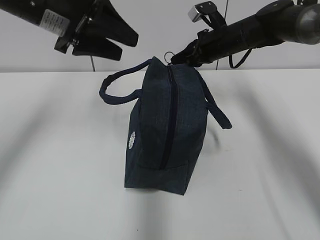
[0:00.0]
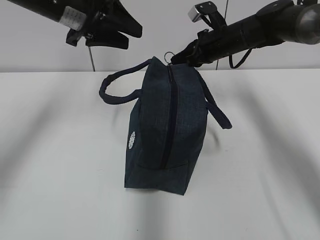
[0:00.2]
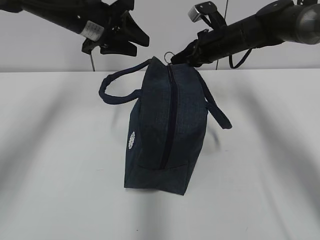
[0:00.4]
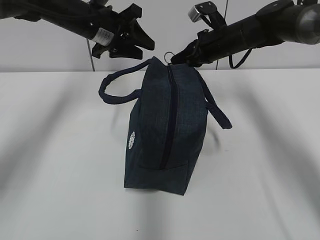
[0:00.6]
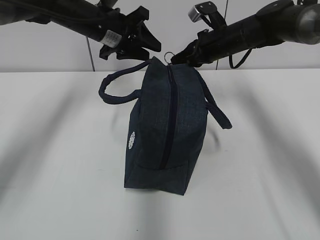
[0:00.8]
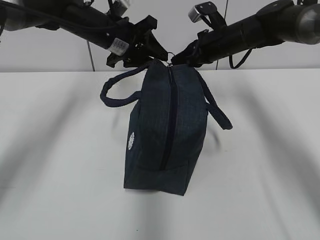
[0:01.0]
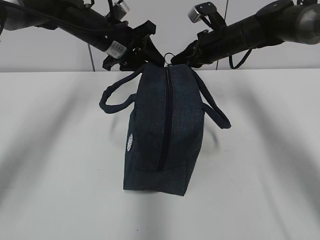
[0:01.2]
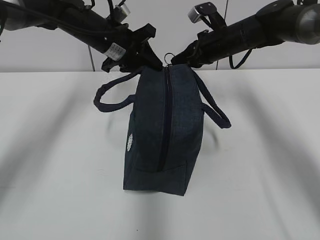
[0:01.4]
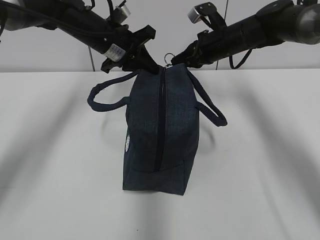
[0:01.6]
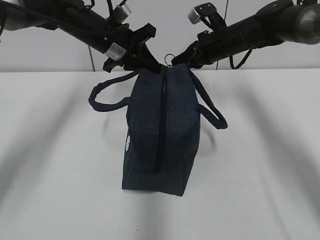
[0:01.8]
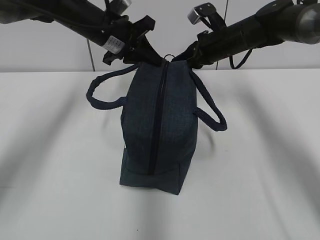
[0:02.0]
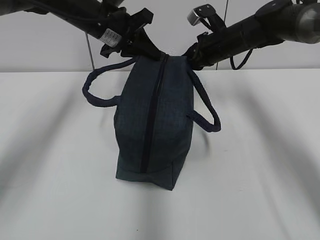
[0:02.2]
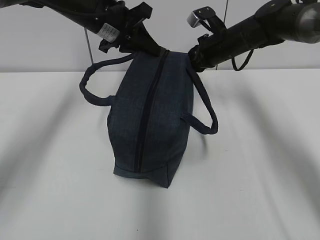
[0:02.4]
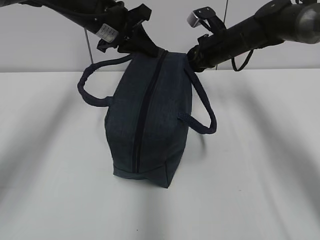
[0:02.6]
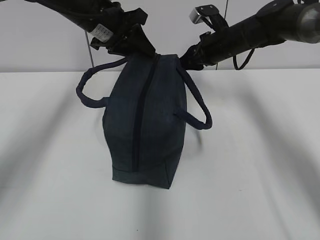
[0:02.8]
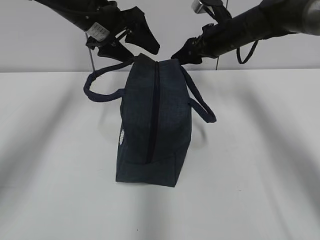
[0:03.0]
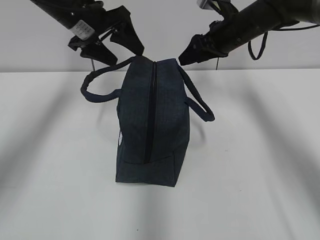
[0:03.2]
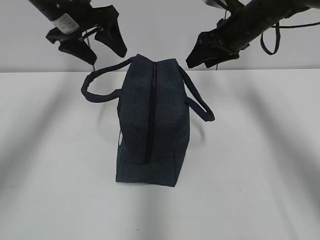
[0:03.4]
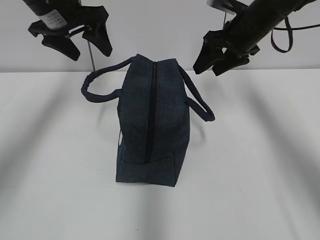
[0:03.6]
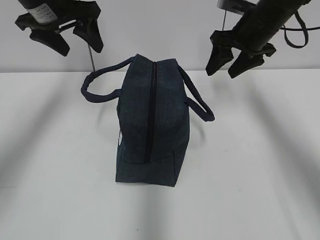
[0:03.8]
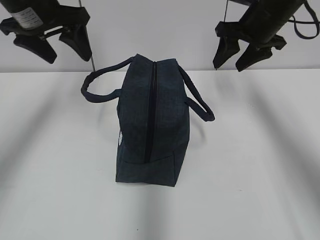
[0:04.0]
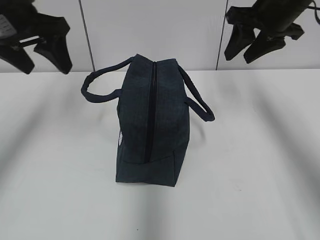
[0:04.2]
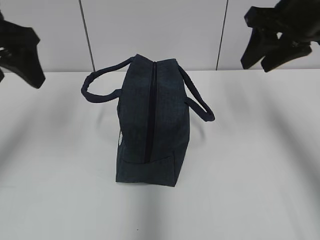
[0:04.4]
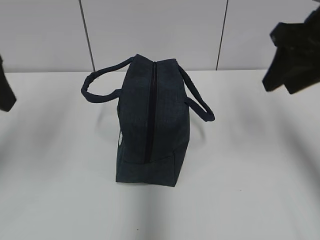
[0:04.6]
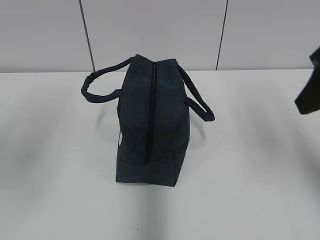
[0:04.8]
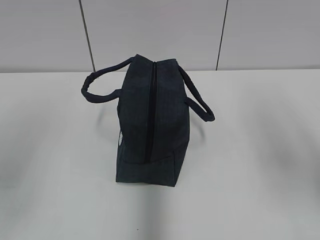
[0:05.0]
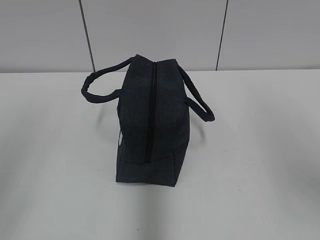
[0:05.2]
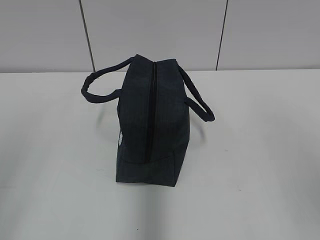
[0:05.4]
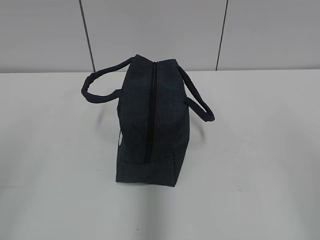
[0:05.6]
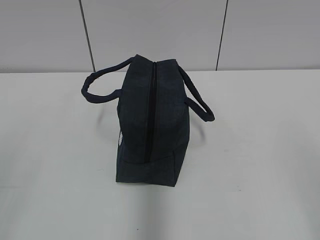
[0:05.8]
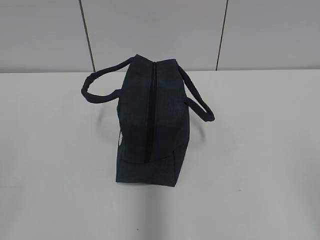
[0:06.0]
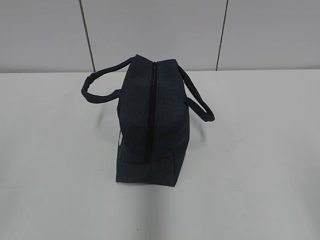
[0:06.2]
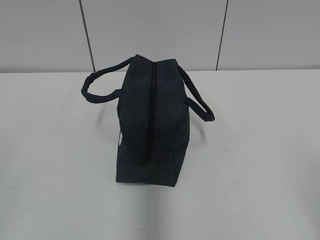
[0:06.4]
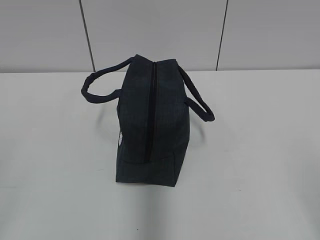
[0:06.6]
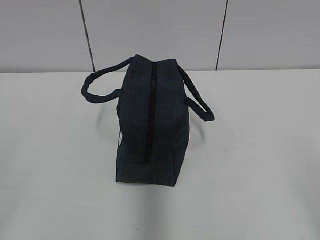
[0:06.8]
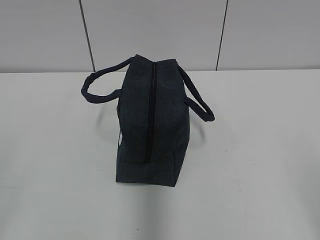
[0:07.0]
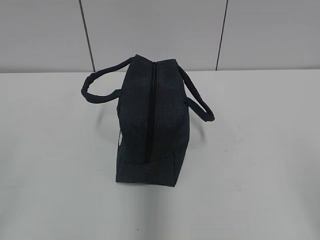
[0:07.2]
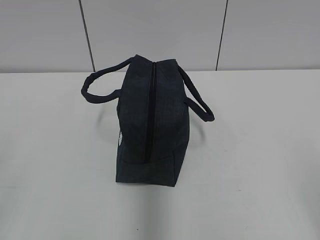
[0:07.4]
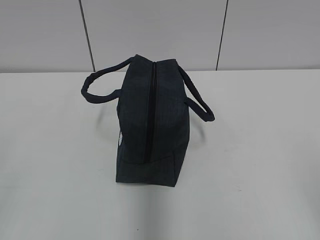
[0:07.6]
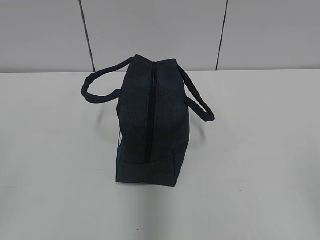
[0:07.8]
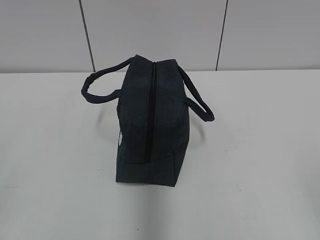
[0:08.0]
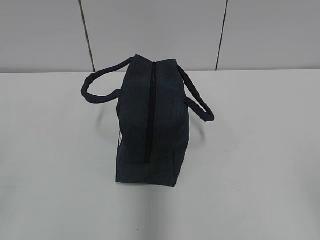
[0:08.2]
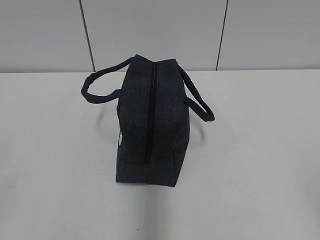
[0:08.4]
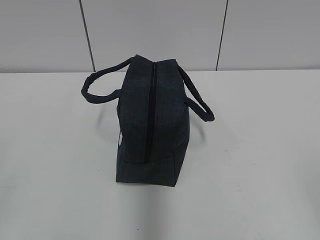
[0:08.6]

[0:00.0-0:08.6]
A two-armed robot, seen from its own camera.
0:00.0 to 0:01.4: The left gripper goes some 15 cm forward and downward.
0:01.4 to 0:02.8: The left gripper shifts by approximately 5 cm, and closes, then reopens. The right gripper opens up.
0:02.8 to 0:04.4: The left gripper heads backward and to the left, covering about 20 cm, and opens its fingers. The right gripper travels backward and upward by about 20 cm.
0:04.4 to 0:05.8: The grippers both shift backward by about 30 cm.

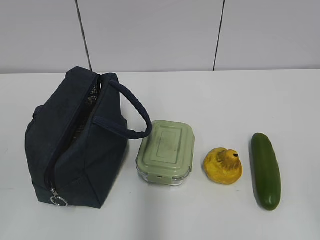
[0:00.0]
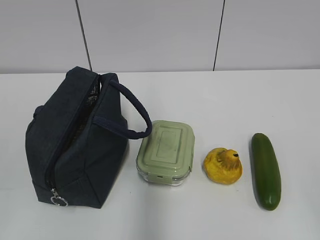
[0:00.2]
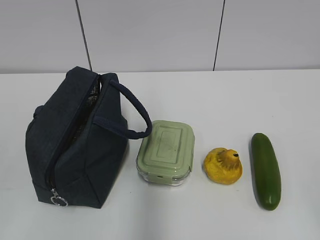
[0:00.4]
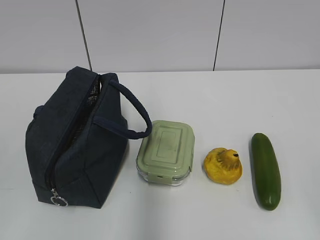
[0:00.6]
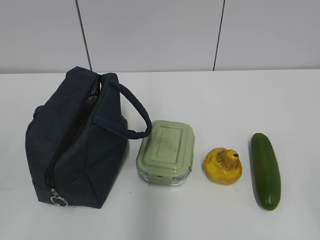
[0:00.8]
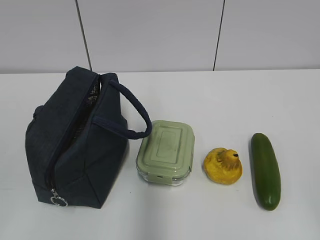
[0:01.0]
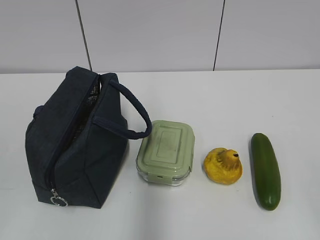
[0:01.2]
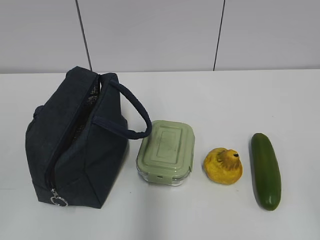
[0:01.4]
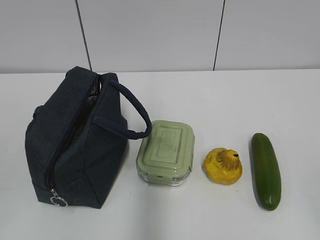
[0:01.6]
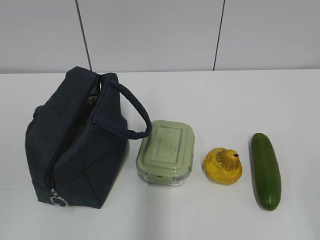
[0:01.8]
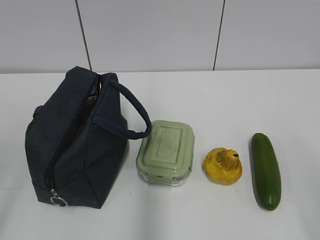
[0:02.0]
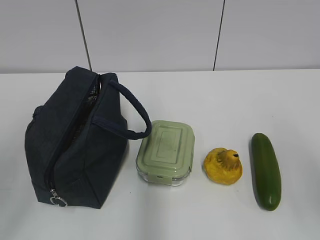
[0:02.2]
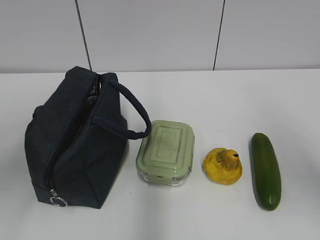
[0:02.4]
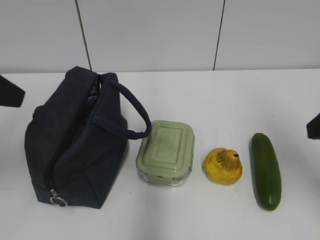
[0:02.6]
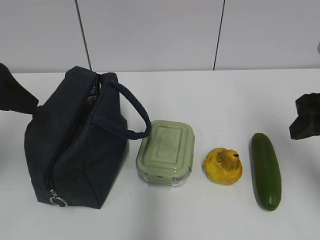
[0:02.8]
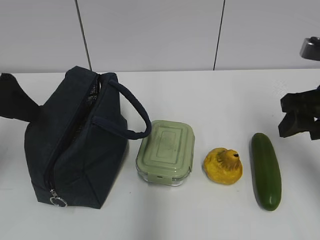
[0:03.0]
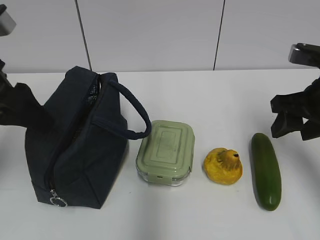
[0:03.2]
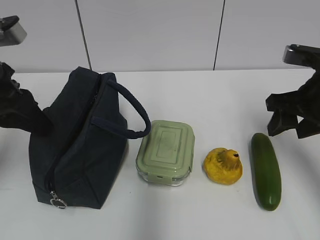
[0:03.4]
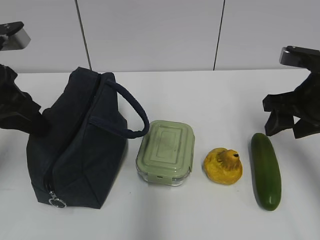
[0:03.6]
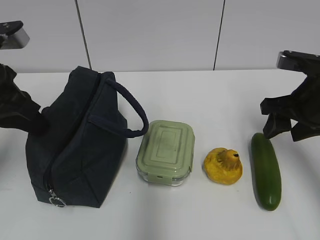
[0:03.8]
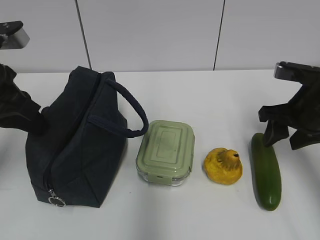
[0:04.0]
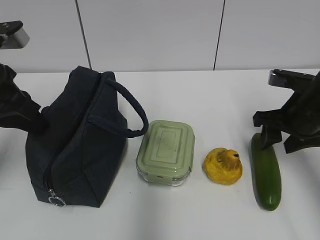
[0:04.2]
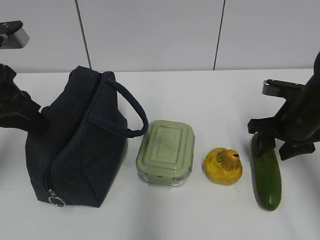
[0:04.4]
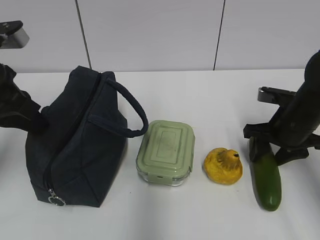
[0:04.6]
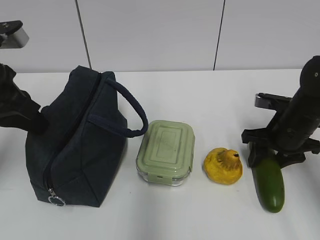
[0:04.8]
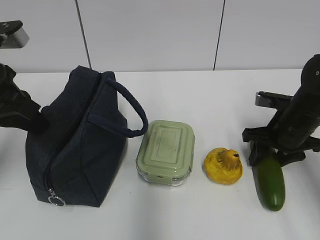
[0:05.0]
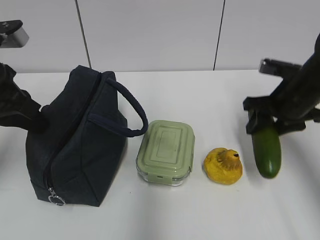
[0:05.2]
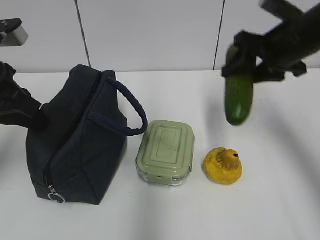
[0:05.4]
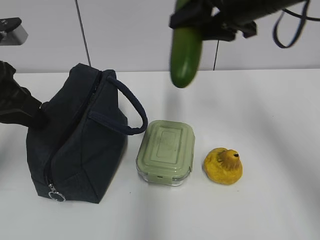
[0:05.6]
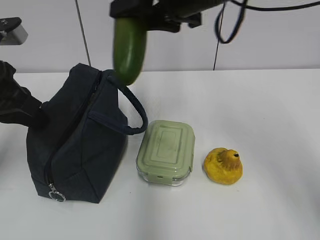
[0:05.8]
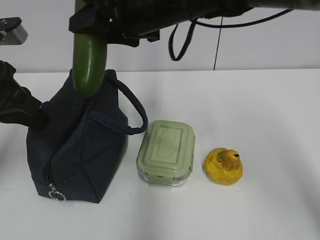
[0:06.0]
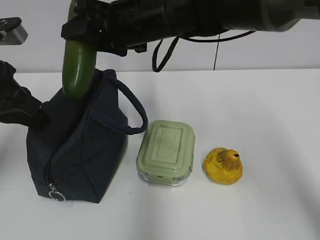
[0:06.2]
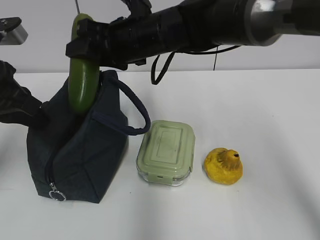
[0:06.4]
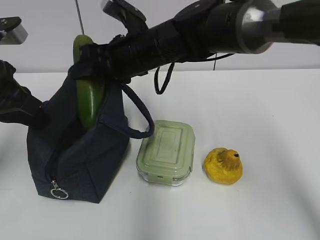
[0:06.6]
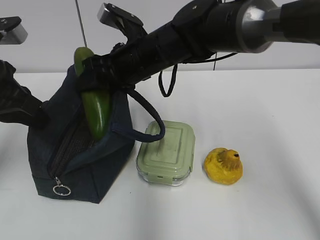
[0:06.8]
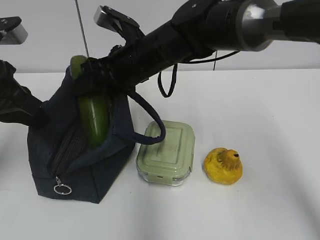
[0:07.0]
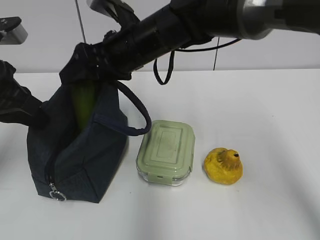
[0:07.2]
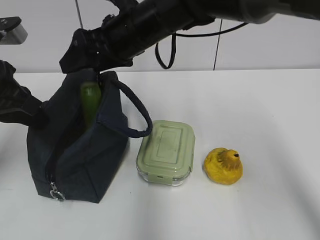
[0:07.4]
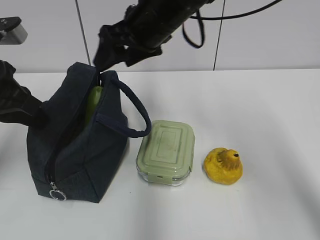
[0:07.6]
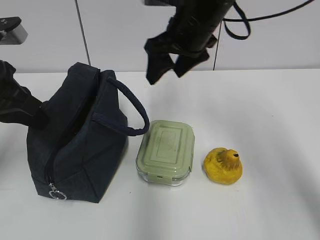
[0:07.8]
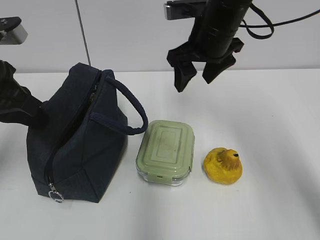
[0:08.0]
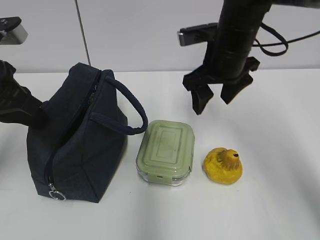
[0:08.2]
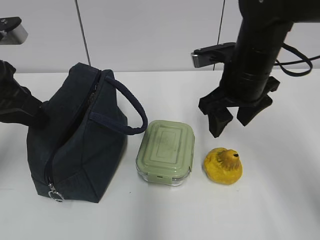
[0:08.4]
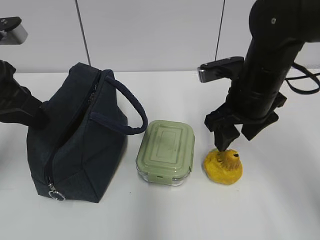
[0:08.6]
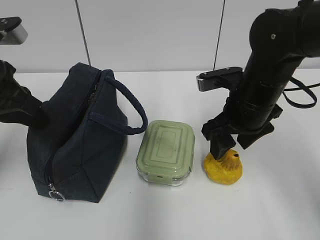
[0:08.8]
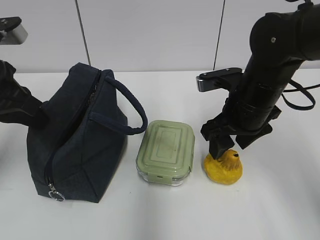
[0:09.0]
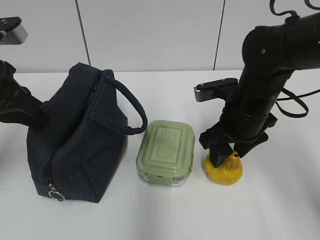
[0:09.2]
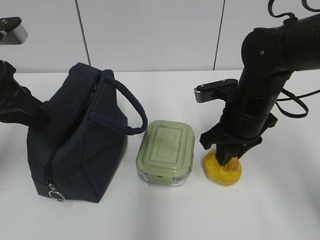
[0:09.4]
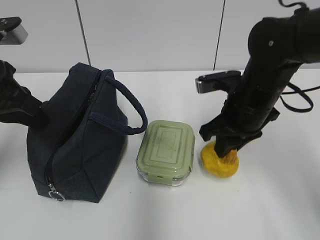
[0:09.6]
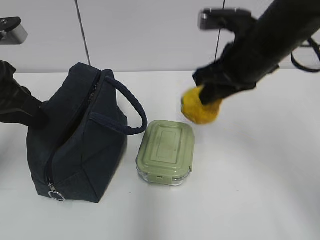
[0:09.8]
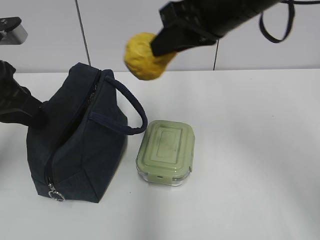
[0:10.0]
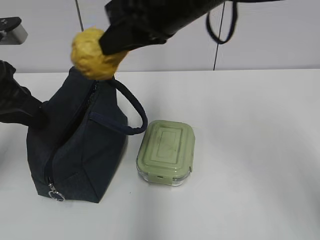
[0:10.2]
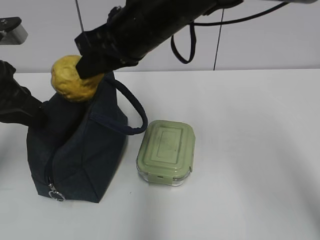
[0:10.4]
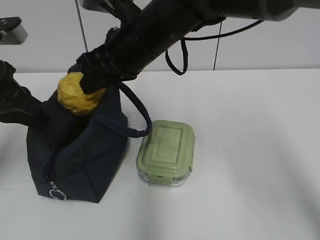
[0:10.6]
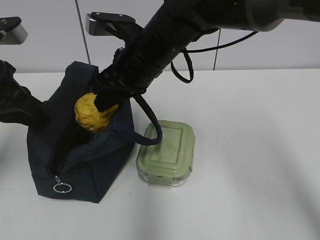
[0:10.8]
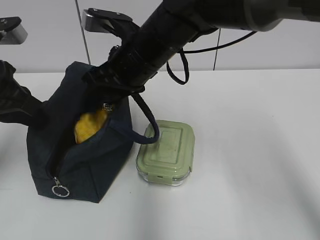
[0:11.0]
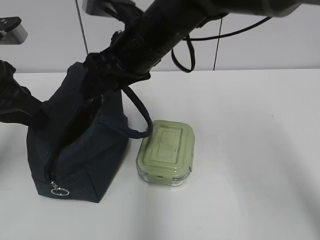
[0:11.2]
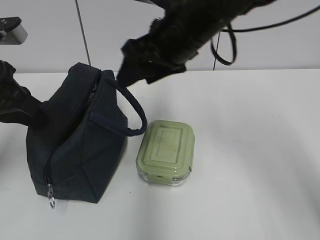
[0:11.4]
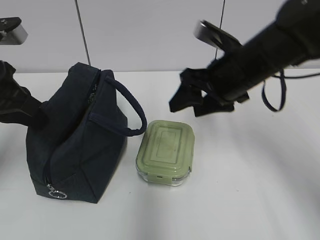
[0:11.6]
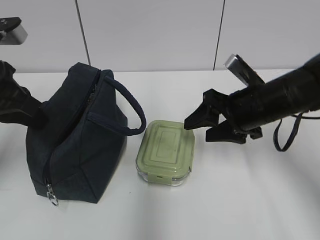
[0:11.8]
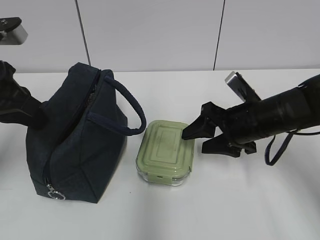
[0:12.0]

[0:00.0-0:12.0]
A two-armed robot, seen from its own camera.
Step, 0:00.0 to 0:04.8: Grab the cucumber with your right hand.
Step, 0:06.6 to 0:07.6: Place it into the bag with your right hand.
Step, 0:08.0 to 0:09.4: Grab the pear with your right hand.
Step, 0:09.6 to 0:11.0: Place it into the bag with your right hand.
0:01.6 to 0:03.0: The two grippers go some 25 cm forward.
0:03.0 to 0:04.4: The right gripper heads downward and forward, covering approximately 10 cm, while the left gripper closes up.
0:04.4 to 0:06.0: The right gripper travels to the left and upward by approximately 30 cm.
0:06.0 to 0:07.6: The right gripper reaches roughly 10 cm downward, then returns.
0:07.6 to 0:09.0: The right gripper shifts some 15 cm to the right, downward and backward.
0:09.0 to 0:10.4: The right gripper shifts roughly 20 cm to the left and upward, and closes up.
0:10.4 to 0:12.0: The right gripper shifts roughly 25 cm to the right and downward, and opens up.

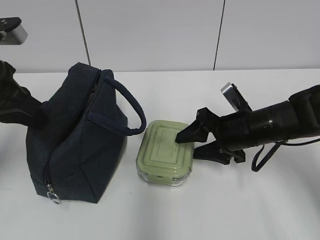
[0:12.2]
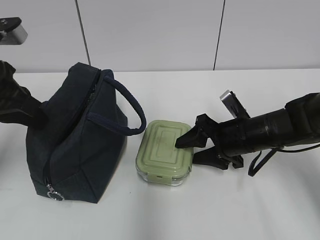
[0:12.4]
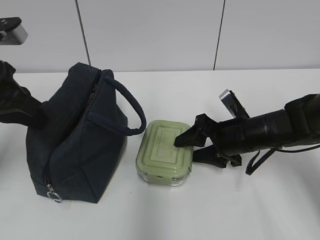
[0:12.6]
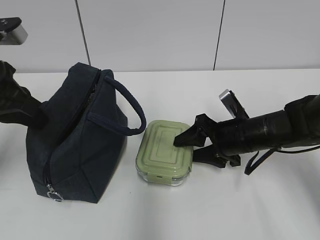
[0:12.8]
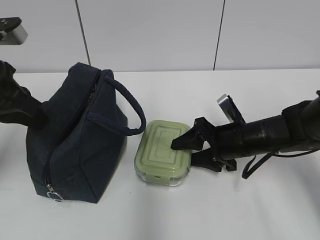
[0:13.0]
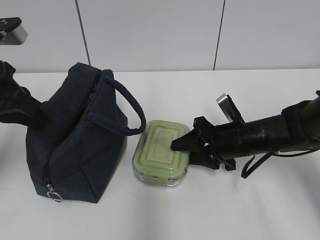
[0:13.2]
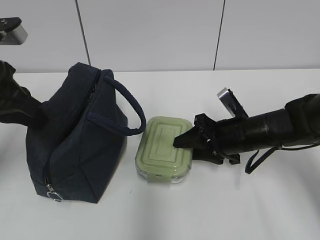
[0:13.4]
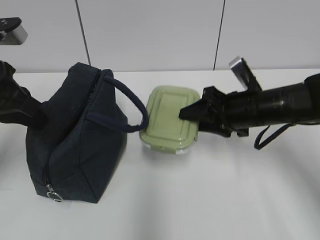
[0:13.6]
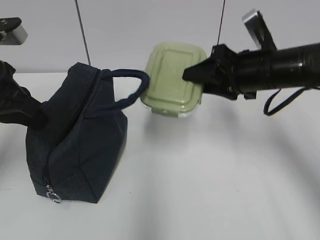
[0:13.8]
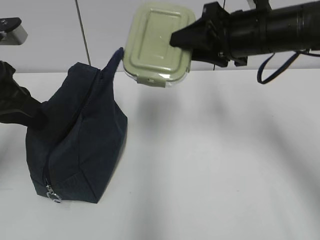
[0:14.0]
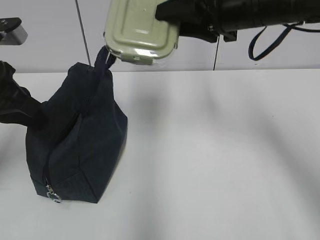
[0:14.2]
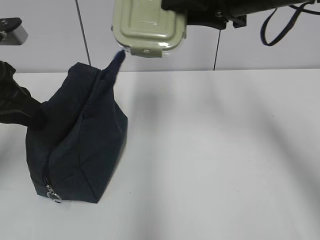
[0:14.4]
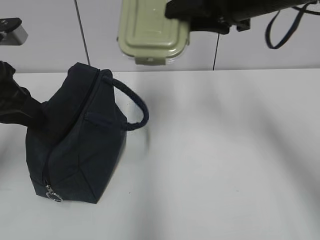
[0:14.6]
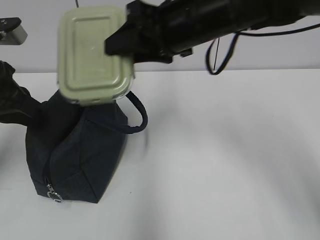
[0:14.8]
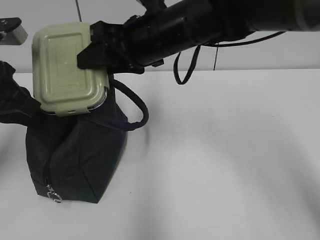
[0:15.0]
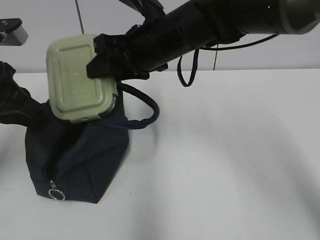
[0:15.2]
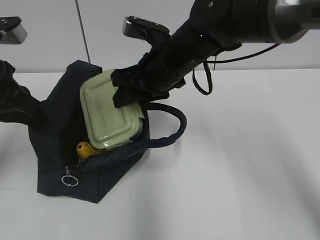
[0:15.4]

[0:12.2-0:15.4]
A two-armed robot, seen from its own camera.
Step, 0:12.2 to 0:13.2: Grab the lunch box with your right hand.
0:12.2 to 0:13.8: The right gripper goes about 10 cm upward.
0:13.8 to 0:15.4: The right gripper is displaced to the left by approximately 15 cm.
